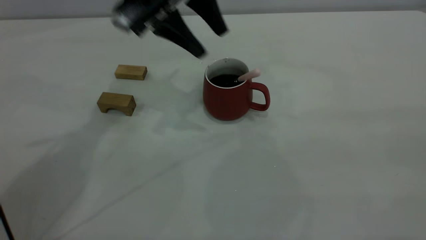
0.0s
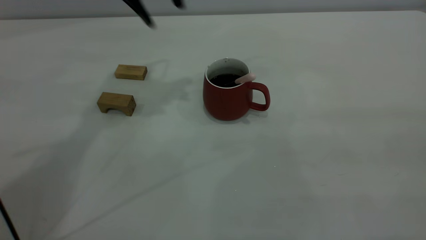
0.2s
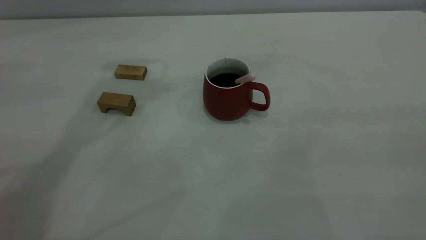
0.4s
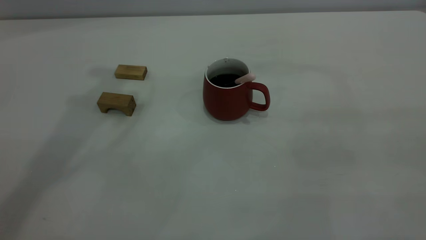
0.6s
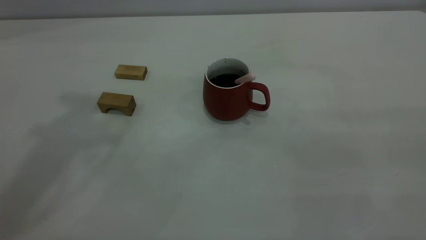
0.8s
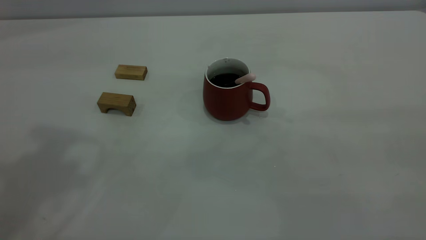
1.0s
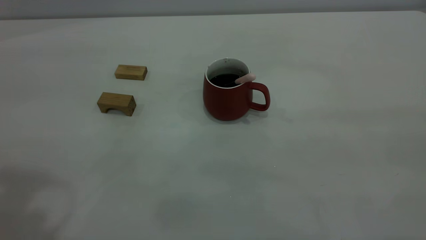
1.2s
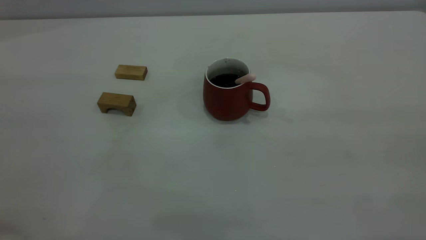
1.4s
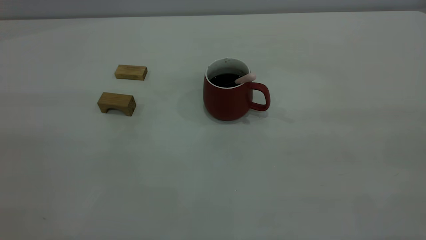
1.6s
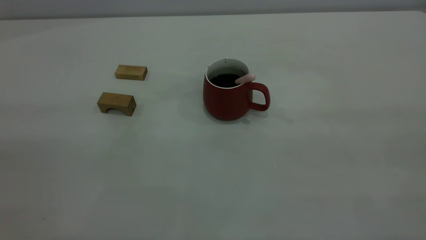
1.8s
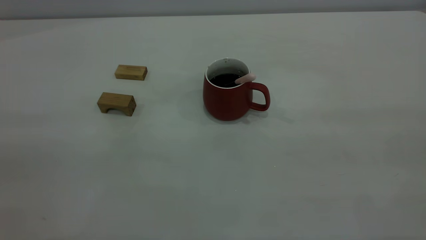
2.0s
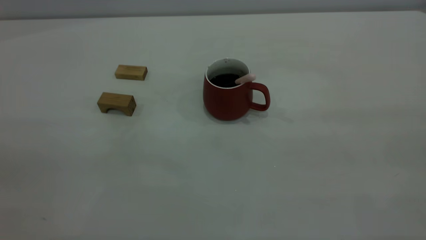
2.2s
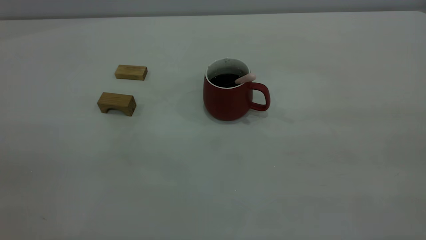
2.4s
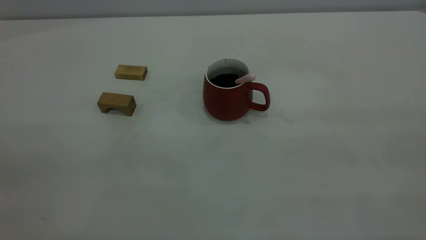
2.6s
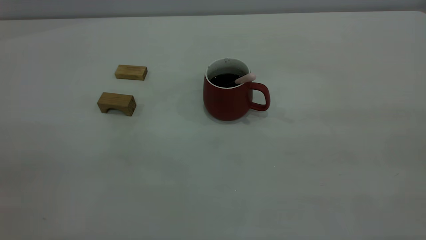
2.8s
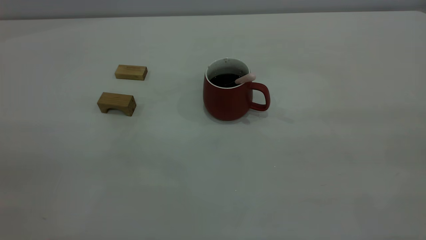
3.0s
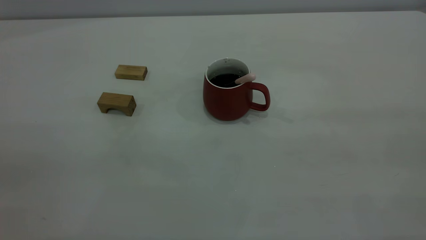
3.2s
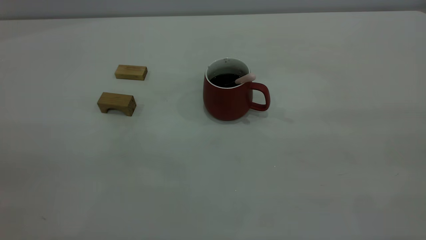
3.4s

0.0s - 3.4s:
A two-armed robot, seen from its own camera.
0.0s - 1.6s: The left gripper goes roughly 40 cm backward and to the left.

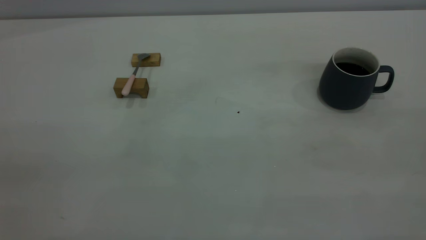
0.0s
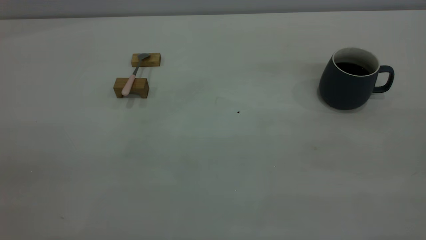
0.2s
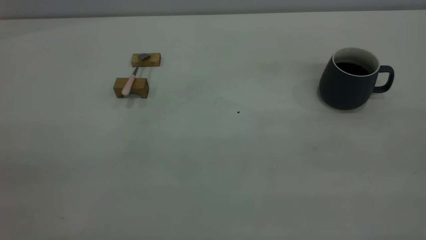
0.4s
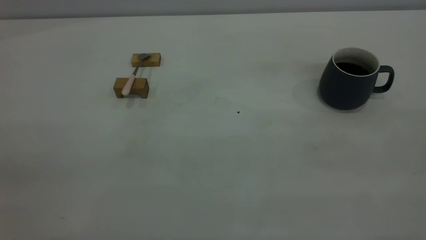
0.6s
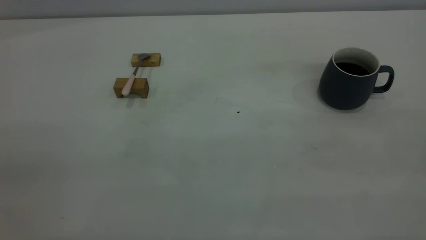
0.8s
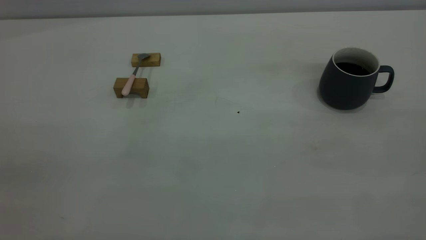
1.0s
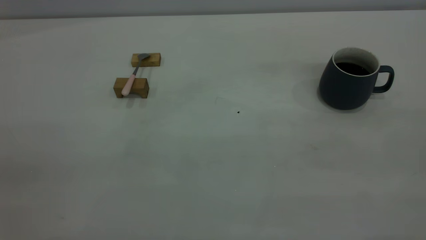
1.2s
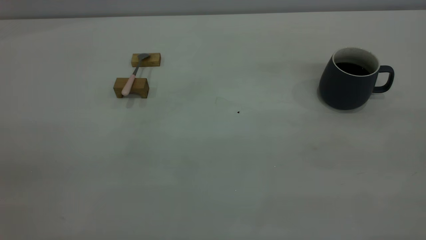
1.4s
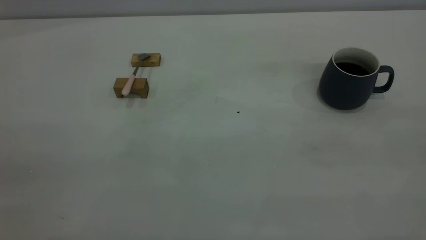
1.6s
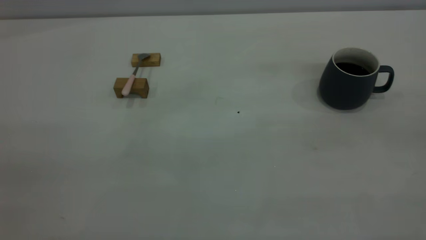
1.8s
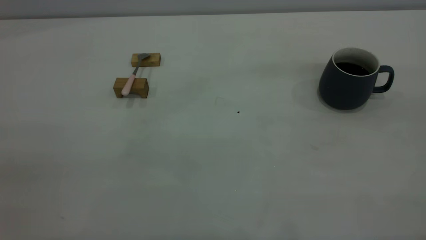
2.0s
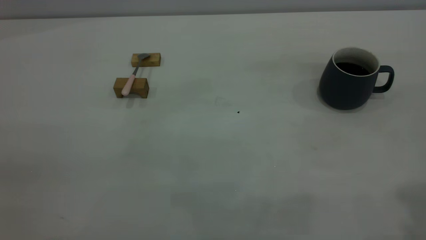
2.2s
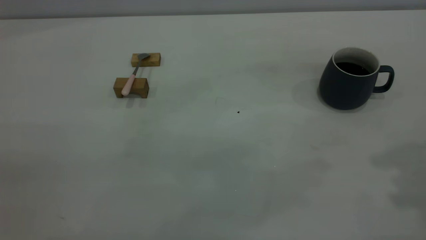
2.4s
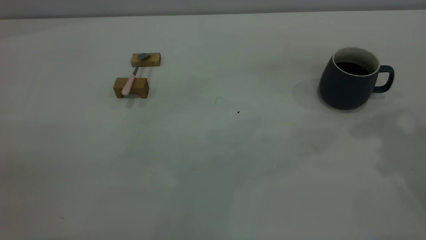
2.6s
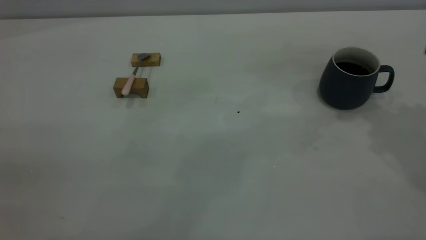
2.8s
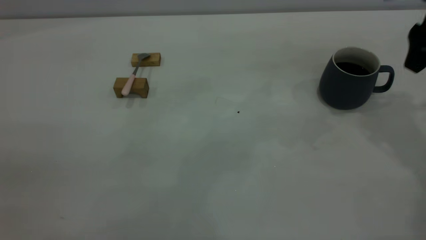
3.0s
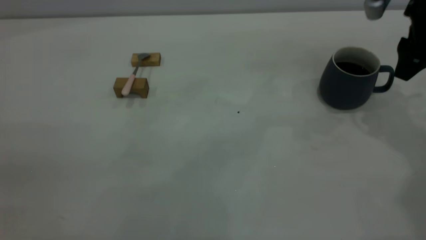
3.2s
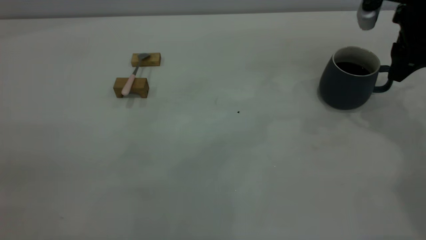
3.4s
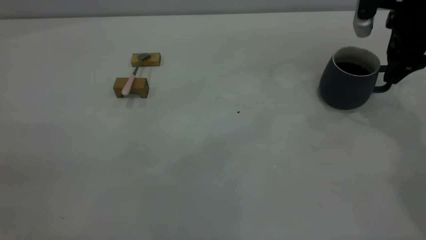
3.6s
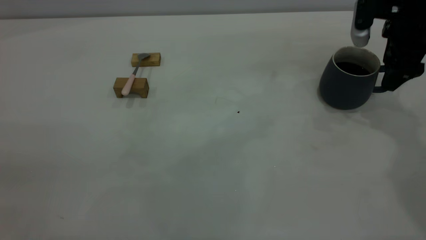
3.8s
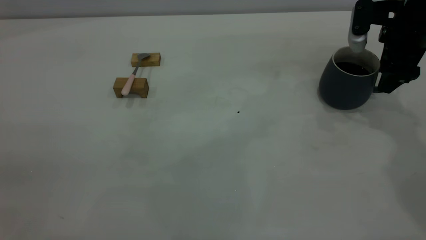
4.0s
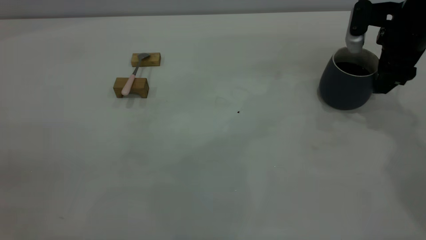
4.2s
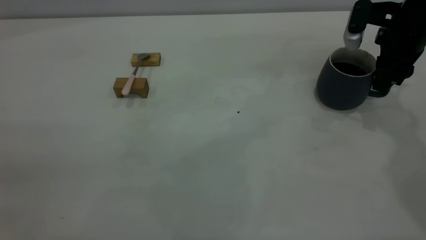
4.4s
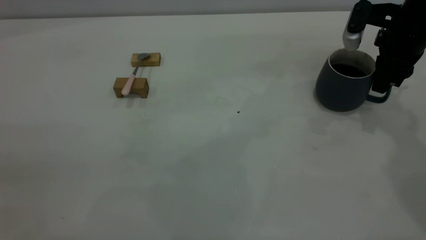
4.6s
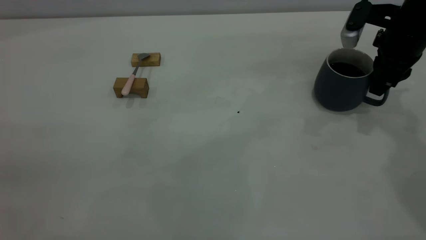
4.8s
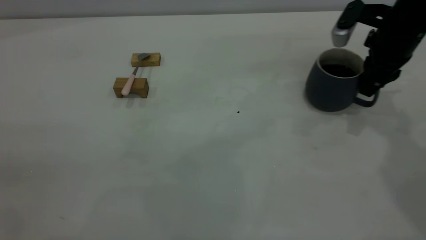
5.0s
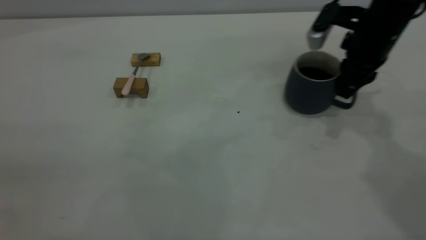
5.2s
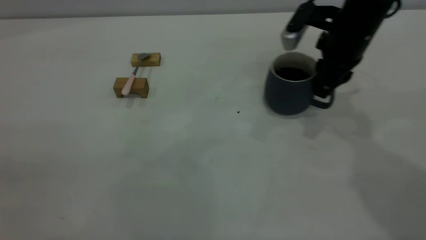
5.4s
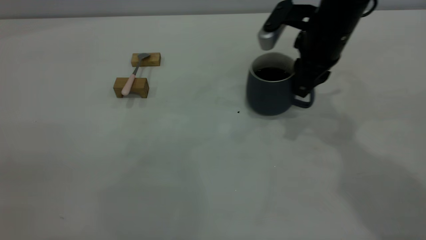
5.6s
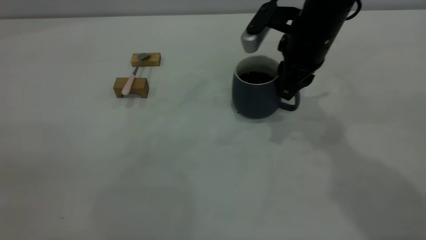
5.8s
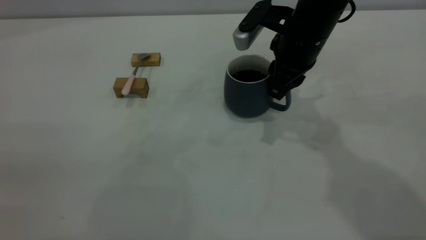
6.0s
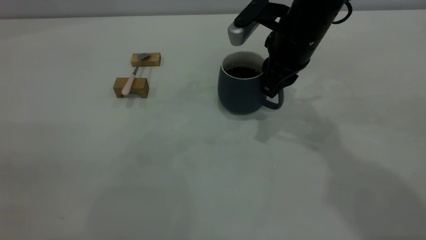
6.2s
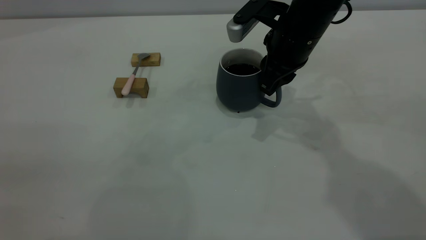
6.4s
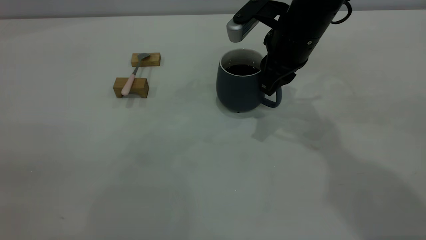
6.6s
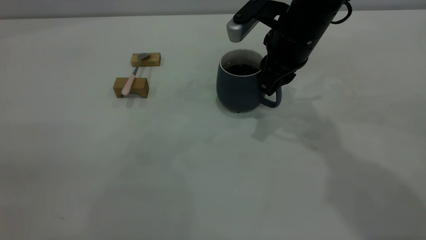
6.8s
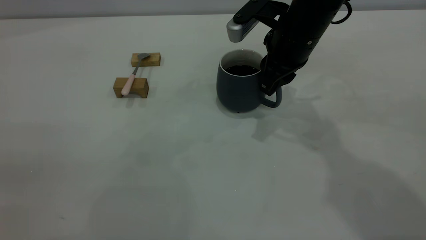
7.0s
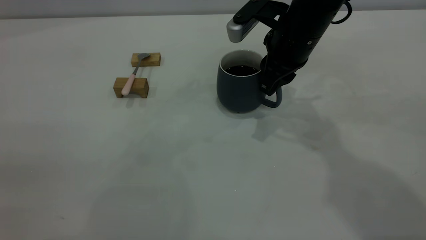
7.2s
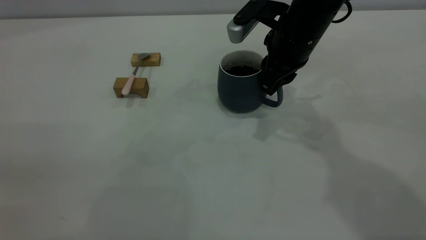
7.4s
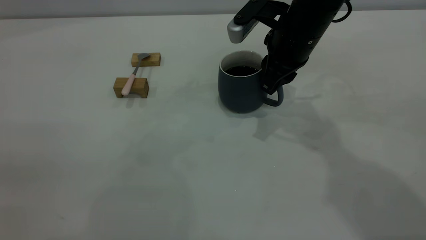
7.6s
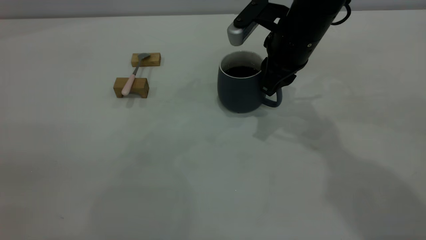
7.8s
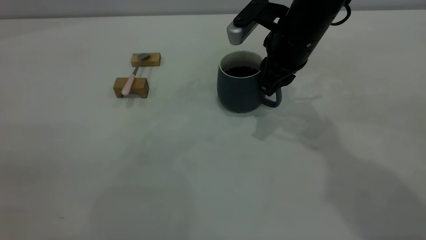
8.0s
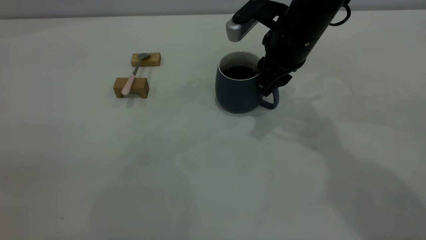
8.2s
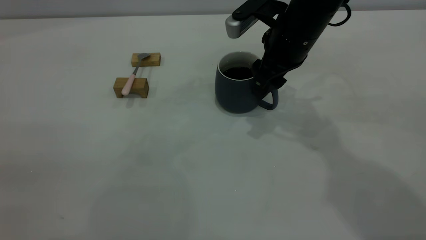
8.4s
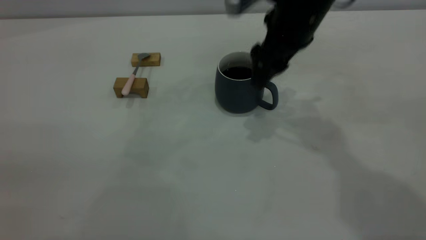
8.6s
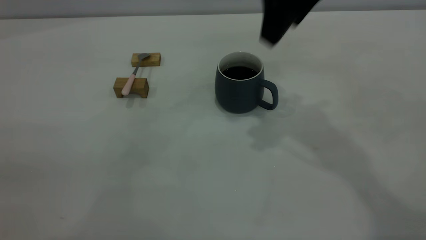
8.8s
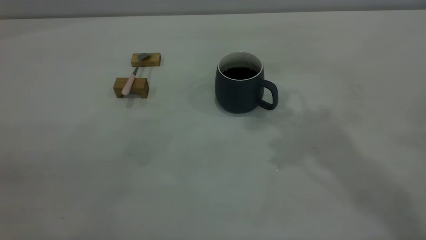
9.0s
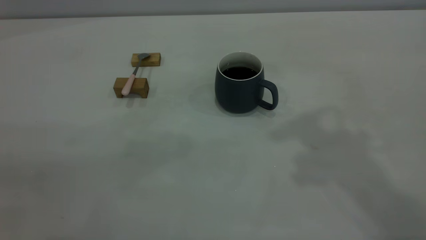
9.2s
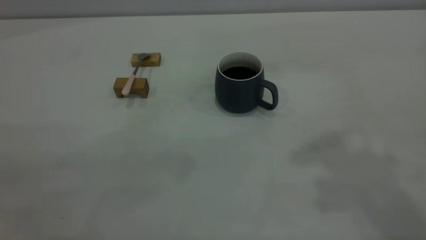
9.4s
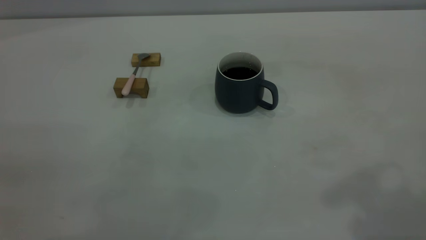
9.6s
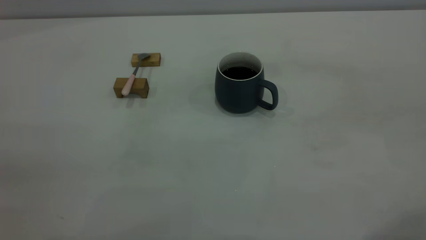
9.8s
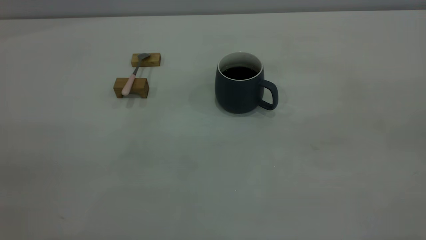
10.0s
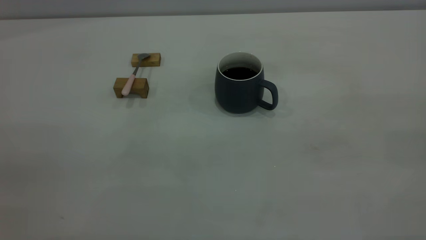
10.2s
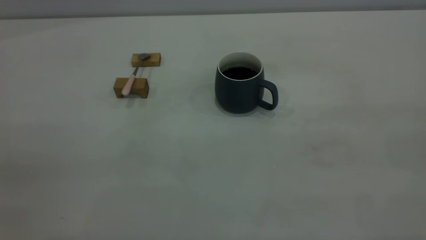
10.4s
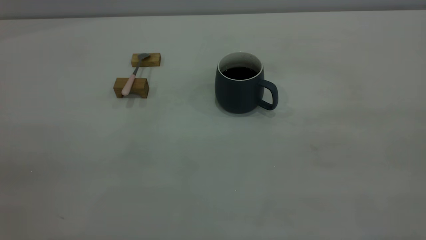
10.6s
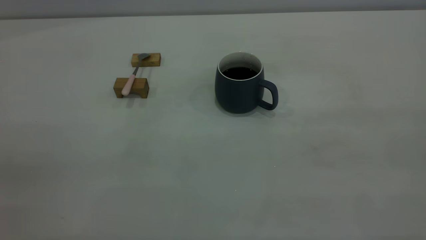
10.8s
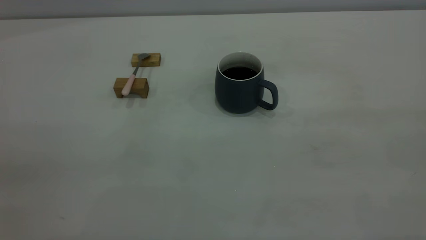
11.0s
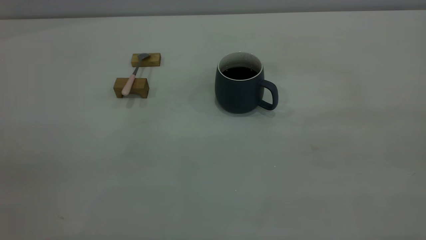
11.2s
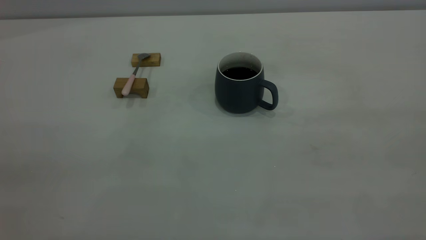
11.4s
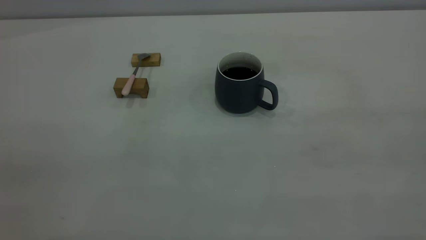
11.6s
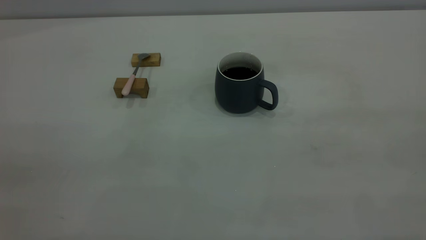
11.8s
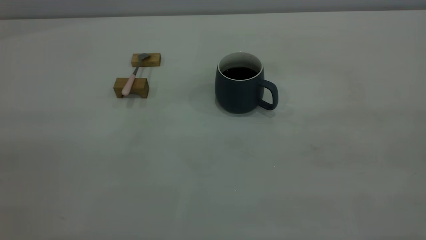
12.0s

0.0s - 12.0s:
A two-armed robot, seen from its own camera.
Step, 0.0s - 8.6s: Move the cup with coffee to the center of view.
0.0s - 1.6s: Neither gripper changes place.
1.6s - 3.0s: The right gripper moves forward and downward, roughly 40 cm, and opens up.
3.0s - 4.4s: The right gripper travels downward by roughly 10 cm, and closes up.
4.4s - 6.0s: The right gripper goes roughly 15 cm to the left.
6.0s - 7.6s: The grippers stay close to where they were, moving slightly.
7.6s - 9.0s: The right gripper travels upward by about 25 cm, and opens up.

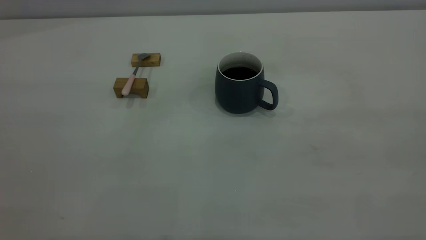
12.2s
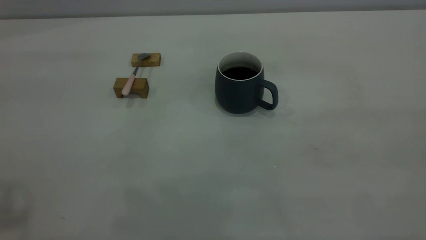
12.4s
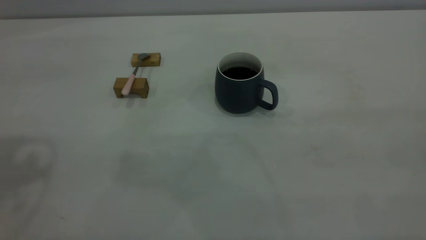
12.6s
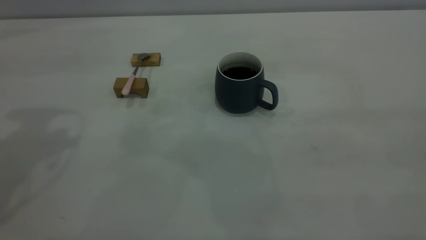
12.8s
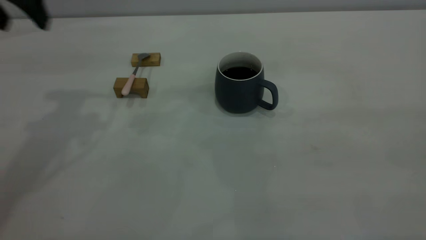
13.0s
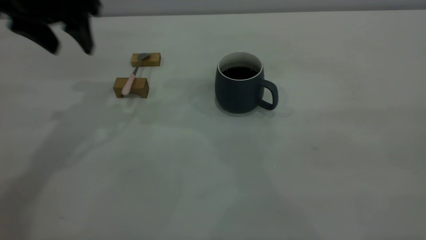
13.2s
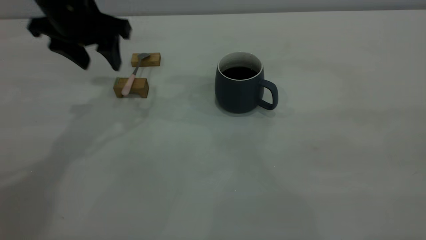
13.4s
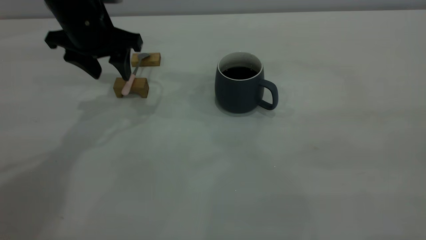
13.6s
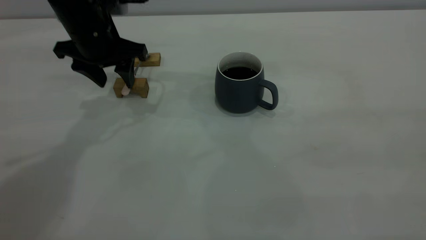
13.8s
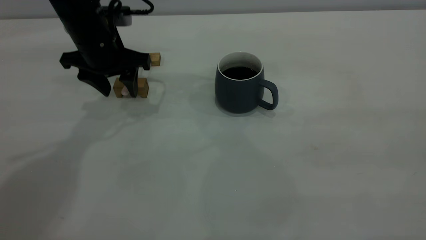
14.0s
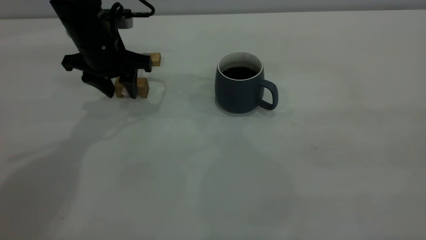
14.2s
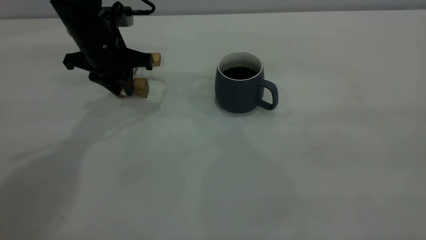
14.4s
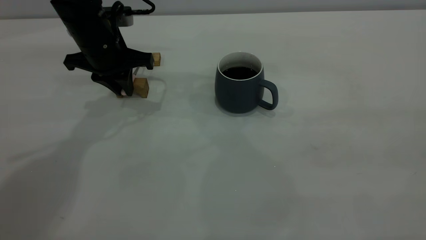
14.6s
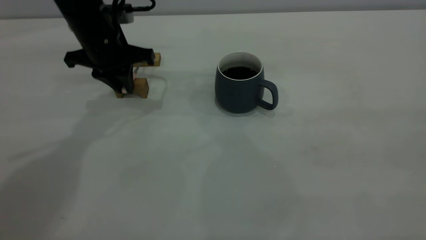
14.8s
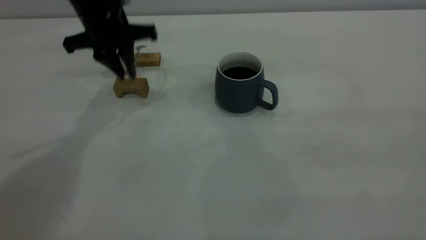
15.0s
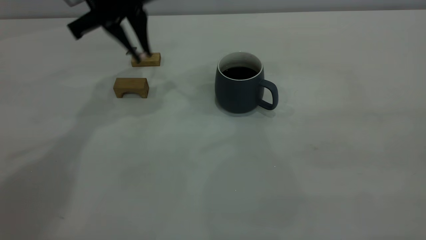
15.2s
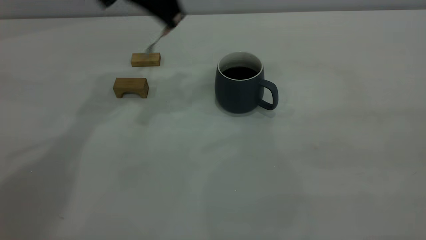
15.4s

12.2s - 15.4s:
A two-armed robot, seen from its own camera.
Step, 12.2s - 15.0s: Pick up the spoon.
12.2s - 13.8s: The left gripper moves forward and downward, about 40 cm.
13.8s - 15.4s: The left gripper travels upward and to the right by some 15 cm, and closes its fingers.
